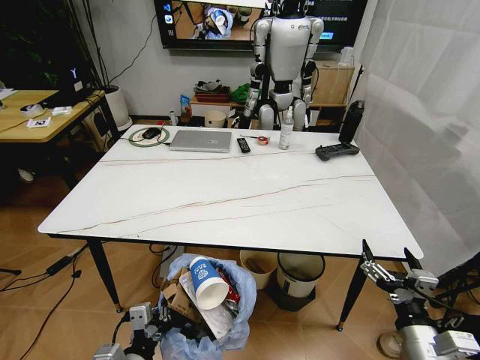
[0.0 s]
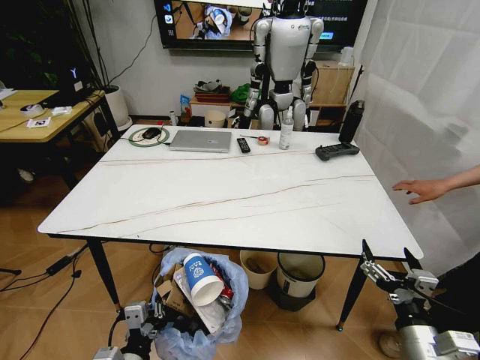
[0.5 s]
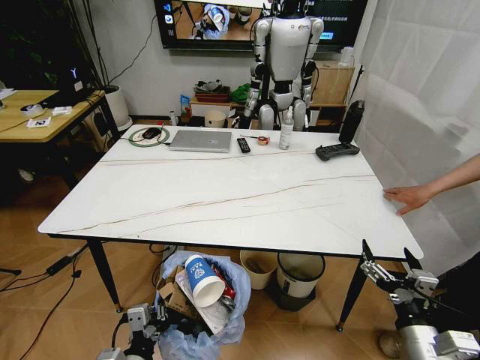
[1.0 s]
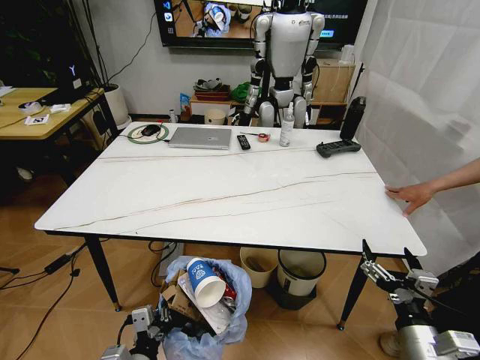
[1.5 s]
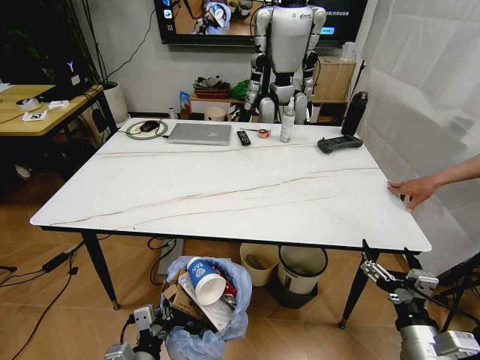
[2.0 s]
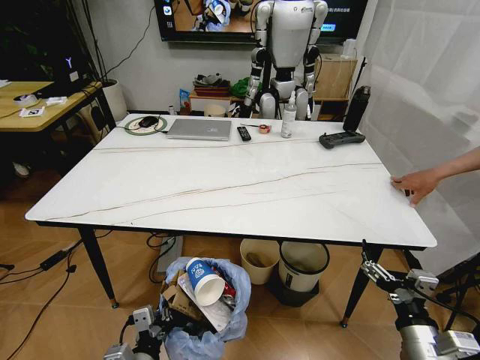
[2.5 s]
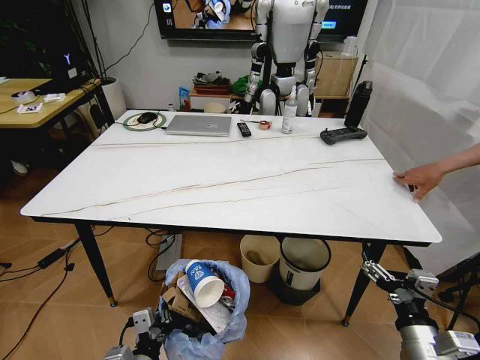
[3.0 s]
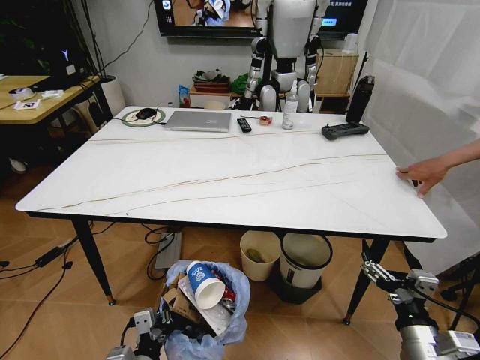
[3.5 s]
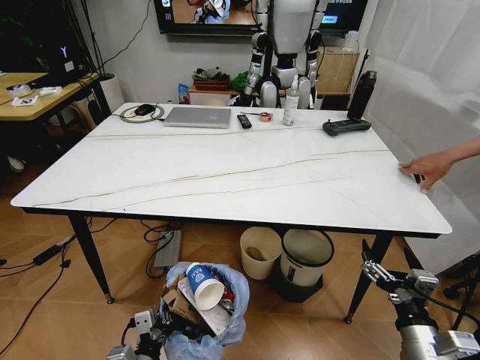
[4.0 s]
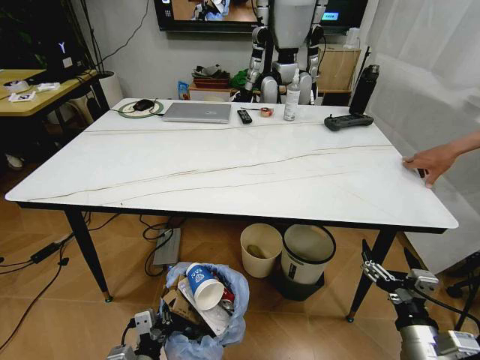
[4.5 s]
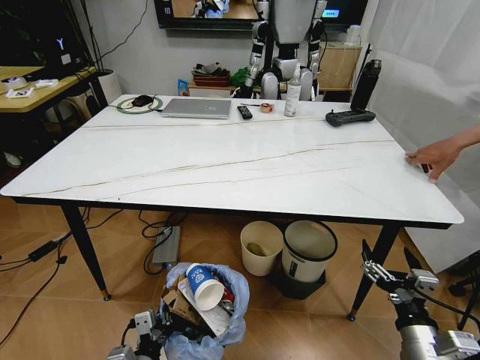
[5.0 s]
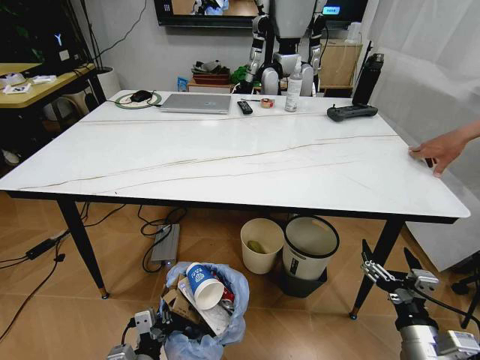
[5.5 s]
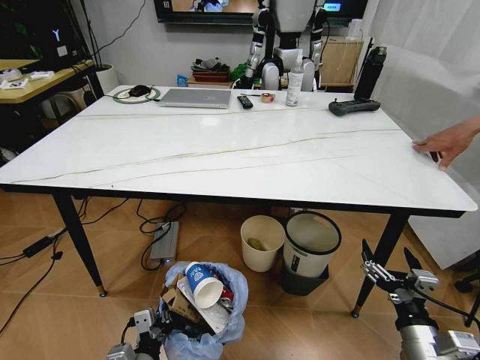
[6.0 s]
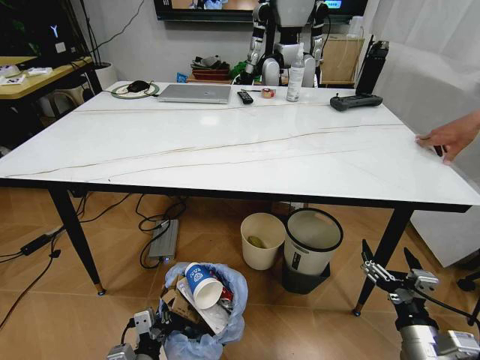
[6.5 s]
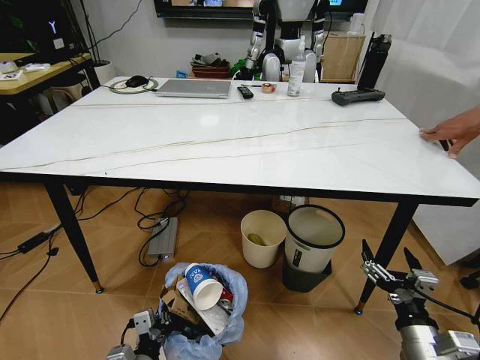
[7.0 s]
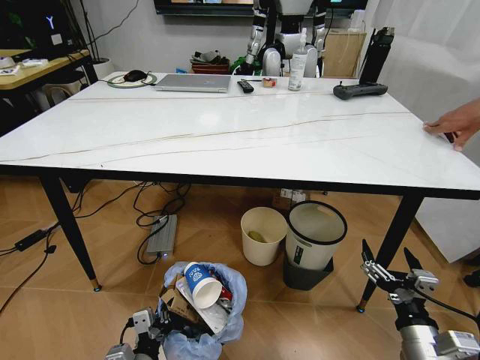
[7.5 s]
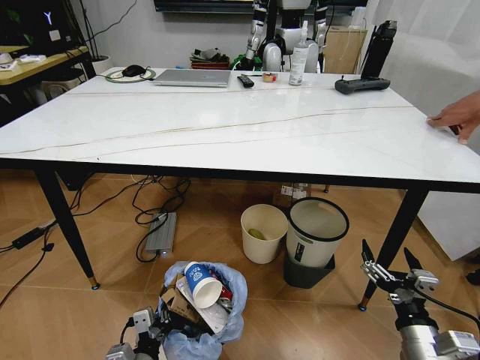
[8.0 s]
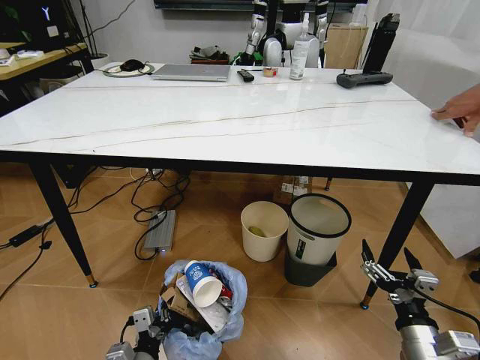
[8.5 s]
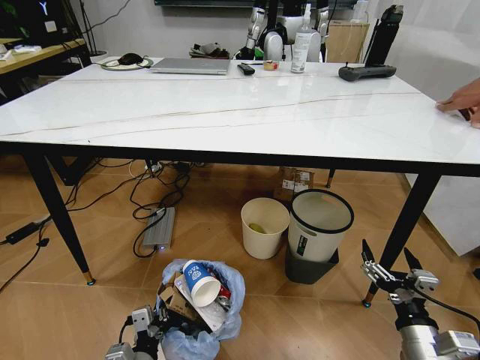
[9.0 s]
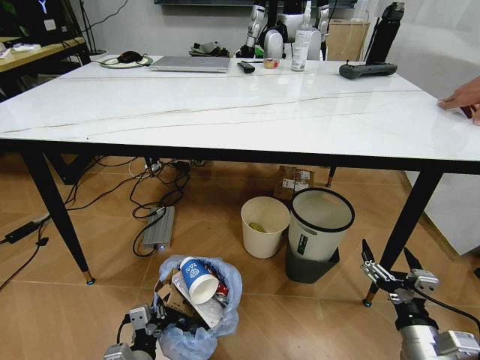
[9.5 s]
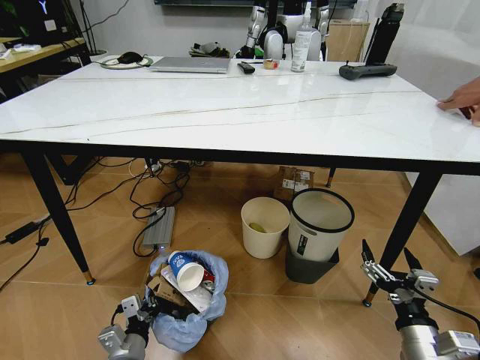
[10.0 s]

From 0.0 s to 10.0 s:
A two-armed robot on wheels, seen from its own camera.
Task of the whole recording: Pick up the trash bin and place the trash from the table into it.
From 8.0 s to 10.0 s: The left gripper changes place by roughly 5 cm.

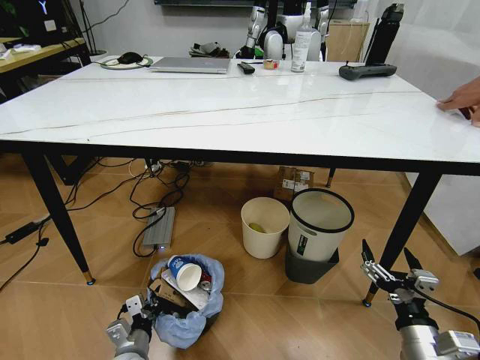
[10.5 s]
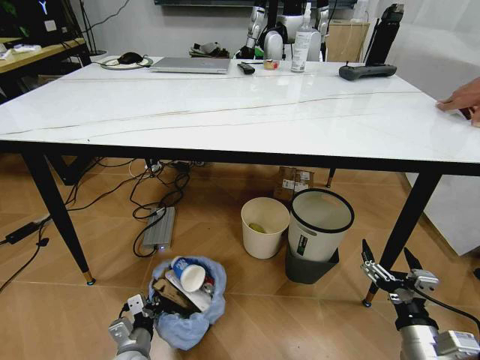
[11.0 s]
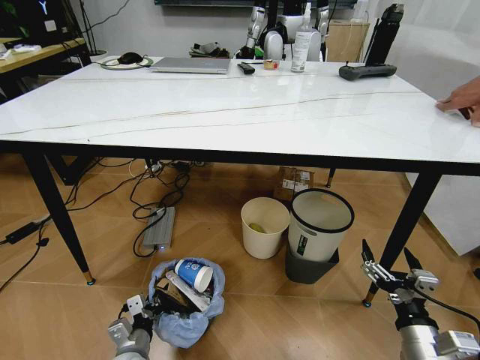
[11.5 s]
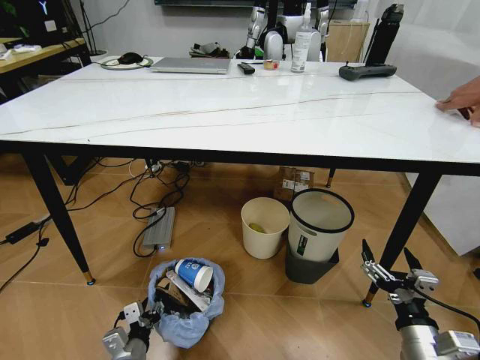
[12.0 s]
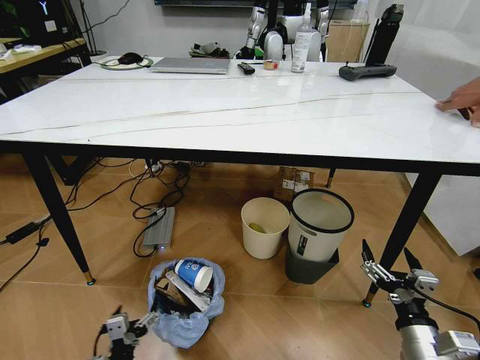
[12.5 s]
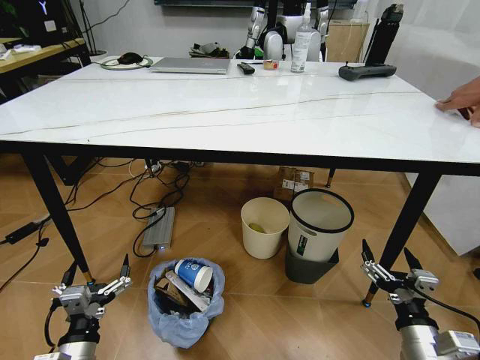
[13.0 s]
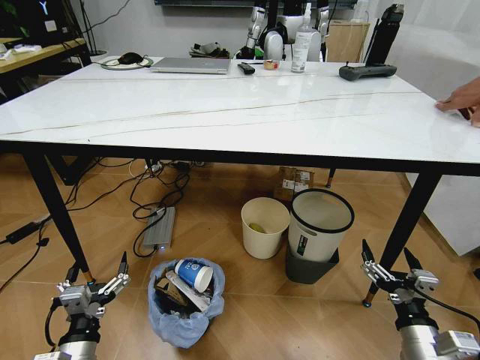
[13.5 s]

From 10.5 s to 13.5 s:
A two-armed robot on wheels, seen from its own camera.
Task of the whole recording: Pick up the trash bin and place the trash from the table into it.
From 10.5 s to 12.0 s: The left gripper opens.
From 12.0 s to 13.5 s: The left gripper moves upward, roughly 10 cm, and opens its fingers.
